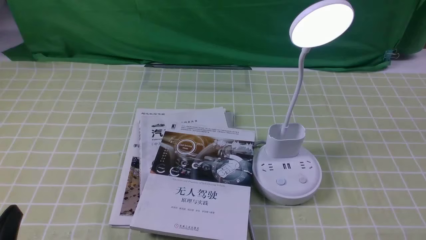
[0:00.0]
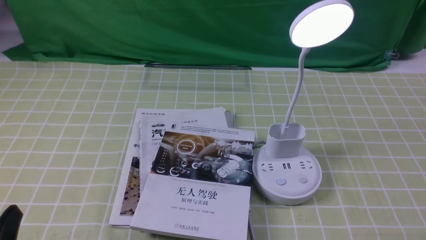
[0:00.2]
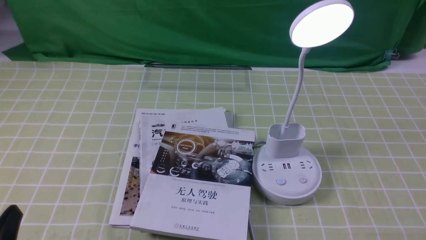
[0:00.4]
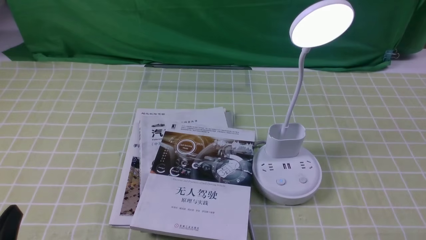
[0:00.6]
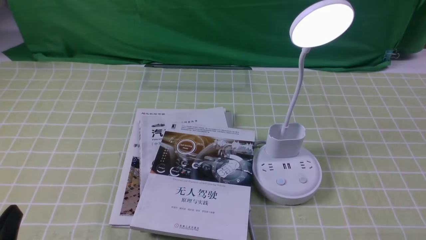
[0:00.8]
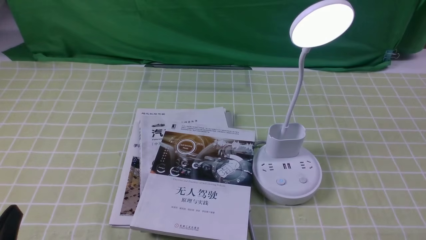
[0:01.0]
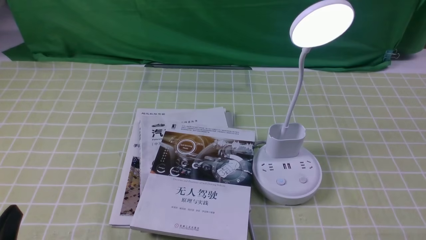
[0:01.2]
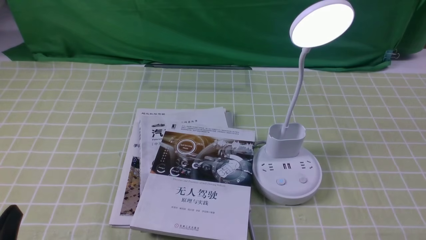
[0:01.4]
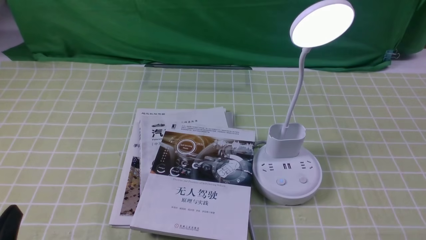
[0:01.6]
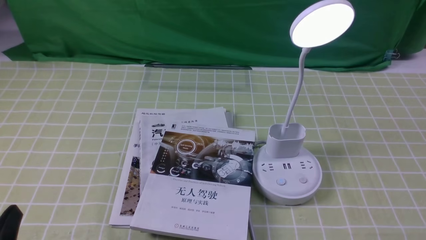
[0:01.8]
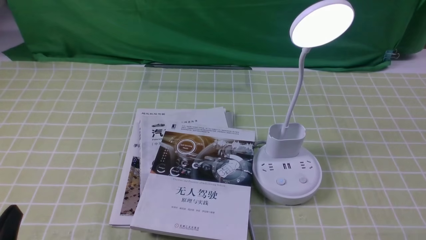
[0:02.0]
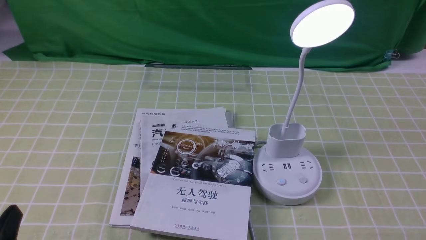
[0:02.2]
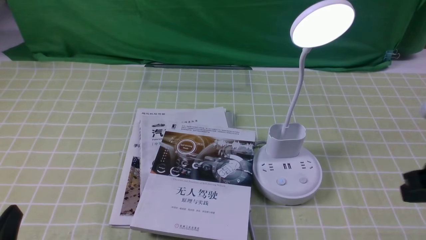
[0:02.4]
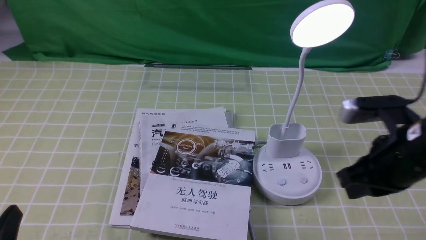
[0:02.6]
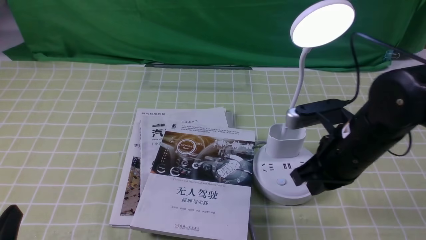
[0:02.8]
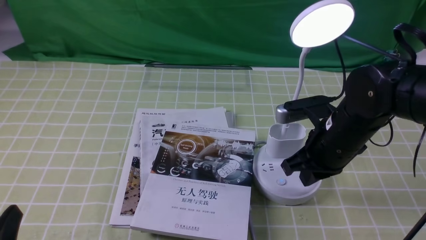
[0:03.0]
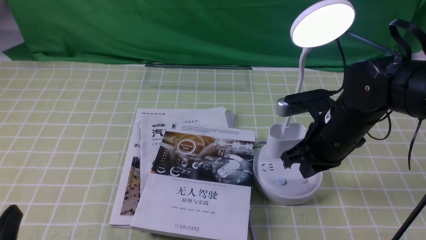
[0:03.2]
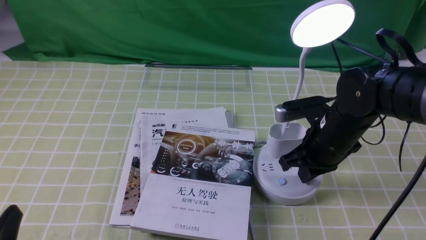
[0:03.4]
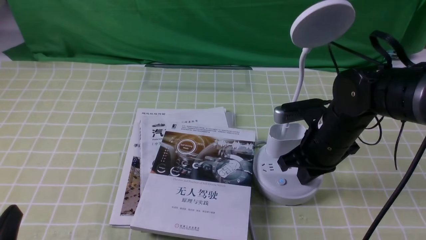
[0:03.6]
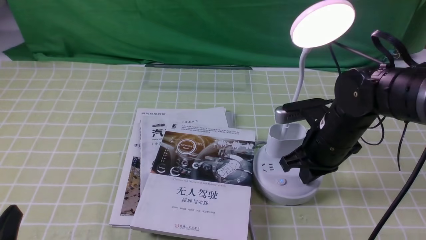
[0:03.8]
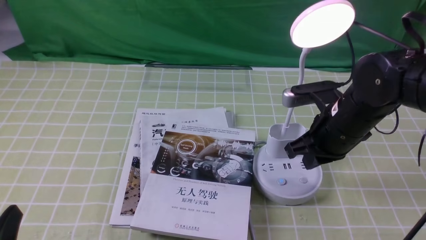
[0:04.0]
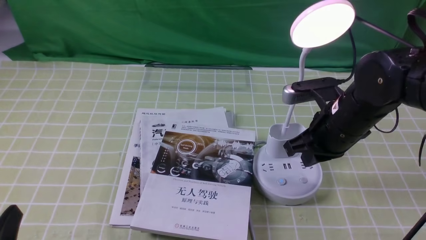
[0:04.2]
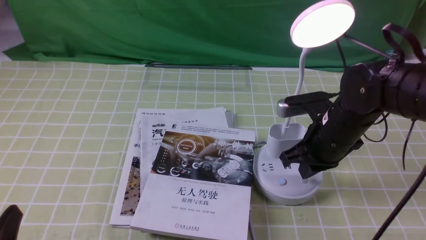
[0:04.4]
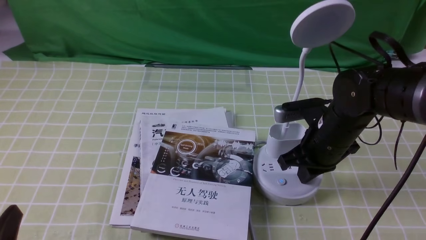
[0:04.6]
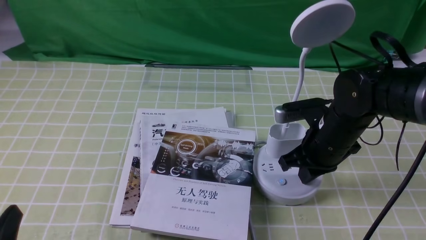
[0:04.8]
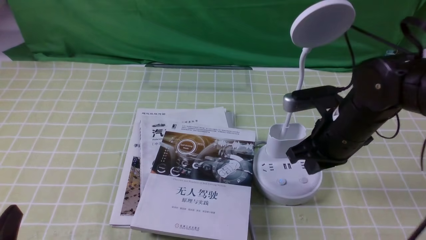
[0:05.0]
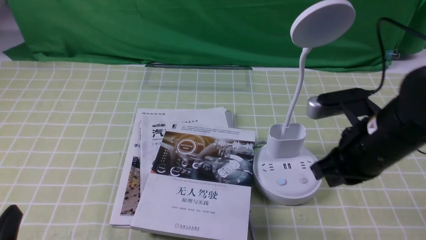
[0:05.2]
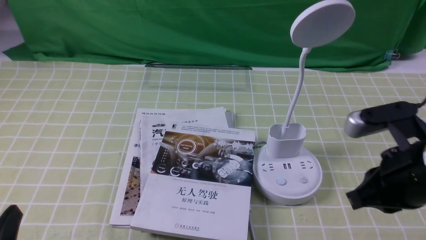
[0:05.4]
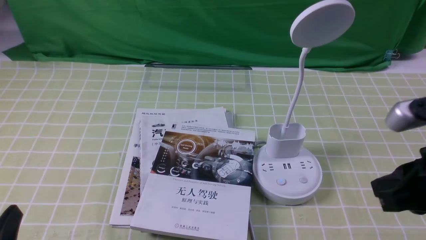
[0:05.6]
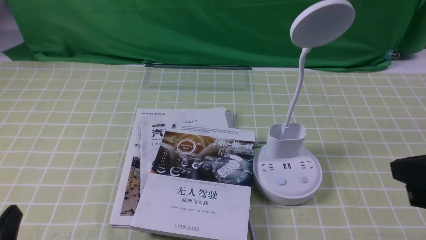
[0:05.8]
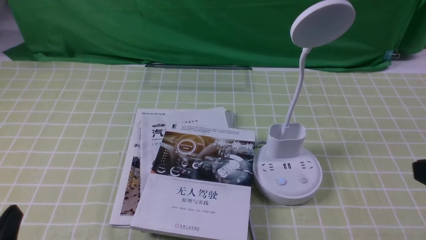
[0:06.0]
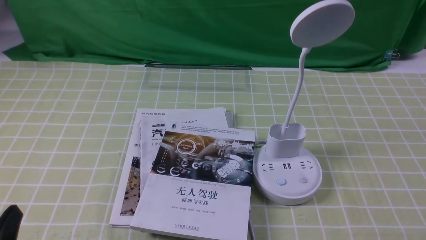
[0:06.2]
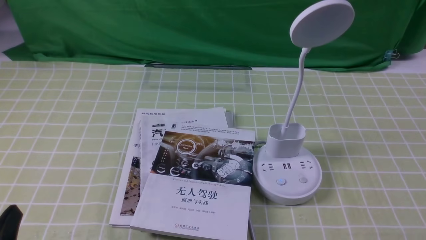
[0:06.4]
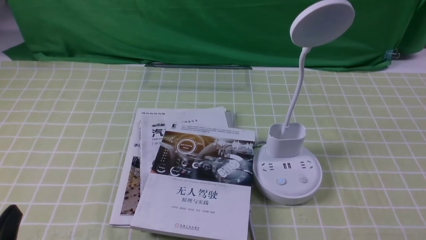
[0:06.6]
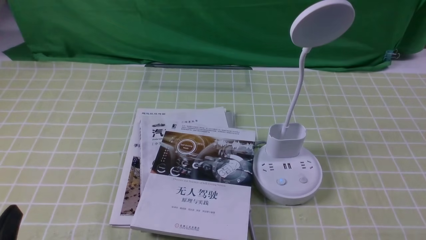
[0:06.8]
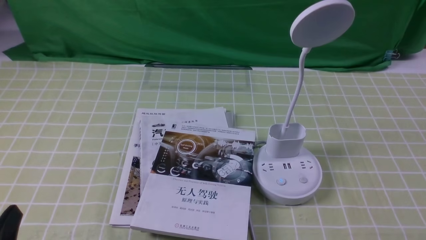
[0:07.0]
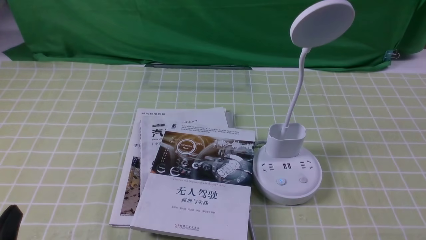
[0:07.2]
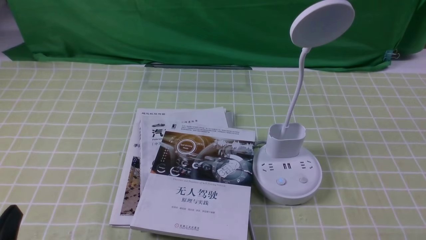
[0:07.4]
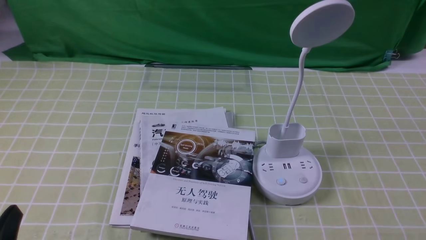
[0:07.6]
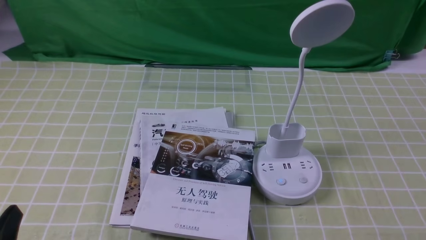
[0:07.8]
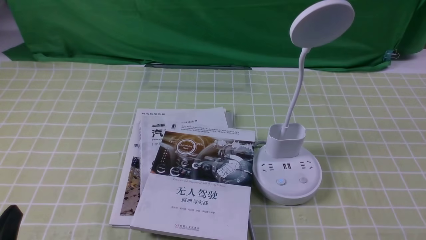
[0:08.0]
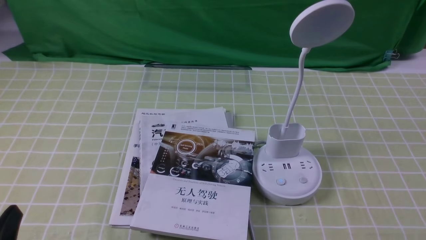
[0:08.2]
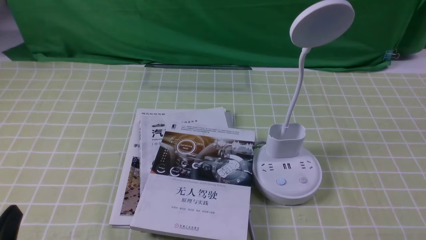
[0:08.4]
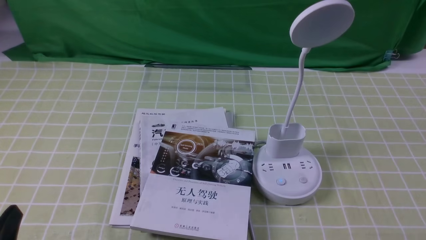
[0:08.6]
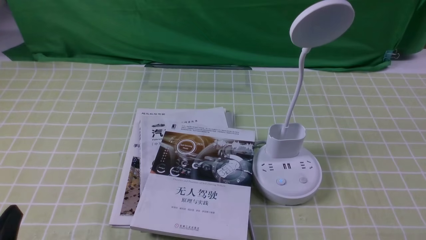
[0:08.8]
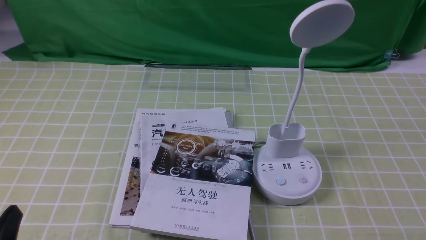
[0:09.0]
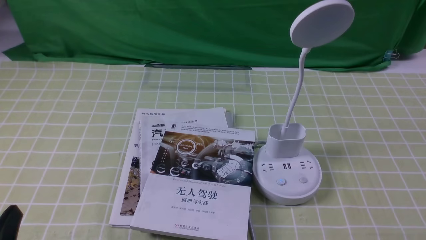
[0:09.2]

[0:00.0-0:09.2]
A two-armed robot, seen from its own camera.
Task of the whole recording: turn off the desk lamp on the green coffee tablecloth by hand.
Step, 0:00.0 to 0:05.2: use the right arm to press the button switch on the lamp holder.
0:01.6 to 0:03.0: The right gripper is displaced forward and to the left by about 30 cm, and closes its fingers.
0:03.0 to 0:04.6: The grippers stay close to where they were, moving slightly.
0:04.6 to 0:06.2: The right gripper moves backward and to the right, about 30 cm.
